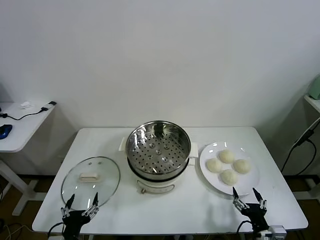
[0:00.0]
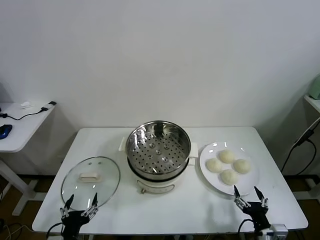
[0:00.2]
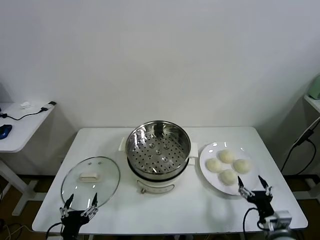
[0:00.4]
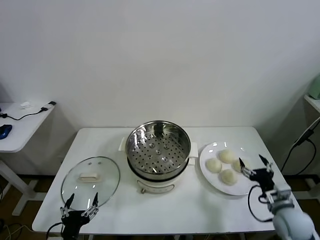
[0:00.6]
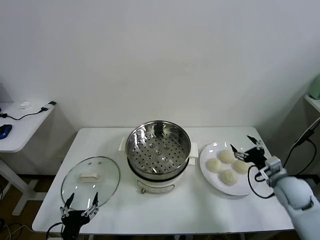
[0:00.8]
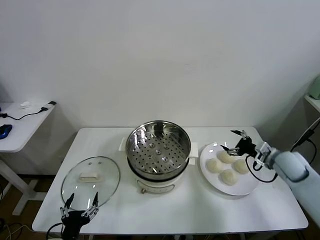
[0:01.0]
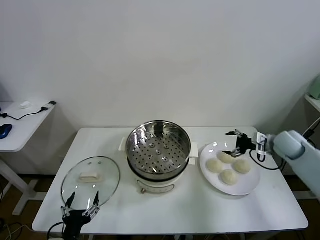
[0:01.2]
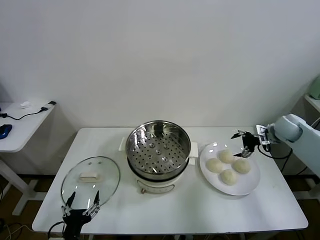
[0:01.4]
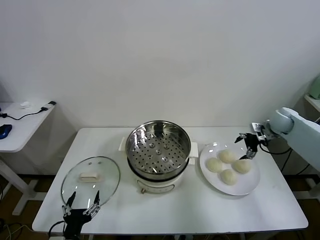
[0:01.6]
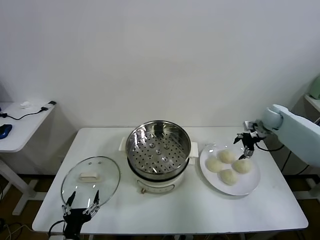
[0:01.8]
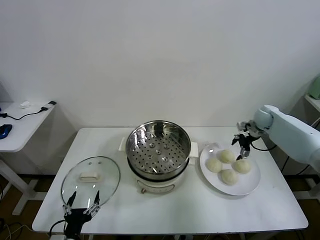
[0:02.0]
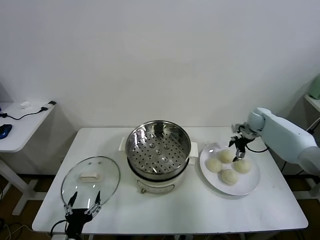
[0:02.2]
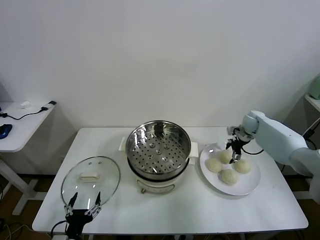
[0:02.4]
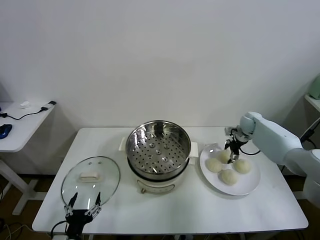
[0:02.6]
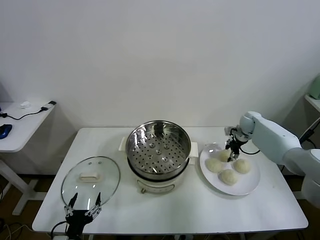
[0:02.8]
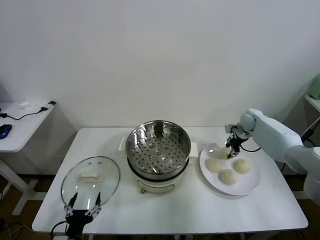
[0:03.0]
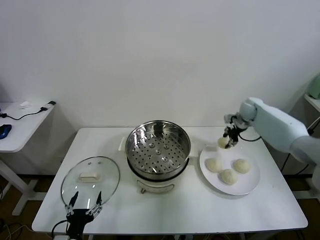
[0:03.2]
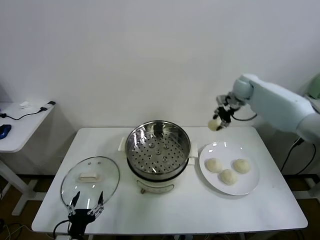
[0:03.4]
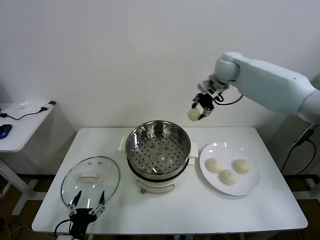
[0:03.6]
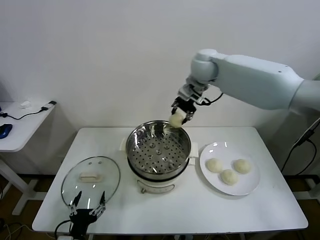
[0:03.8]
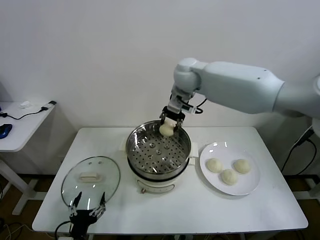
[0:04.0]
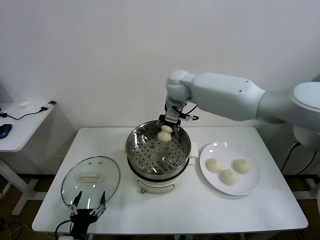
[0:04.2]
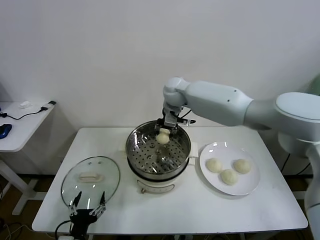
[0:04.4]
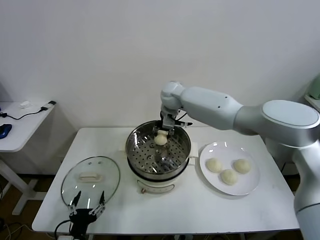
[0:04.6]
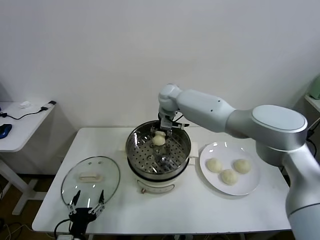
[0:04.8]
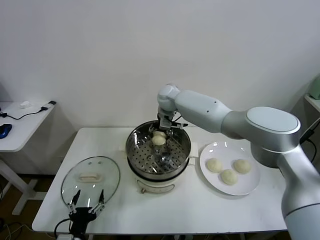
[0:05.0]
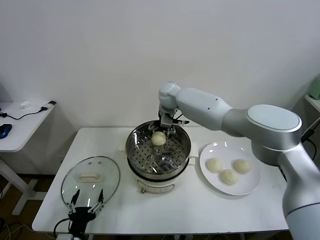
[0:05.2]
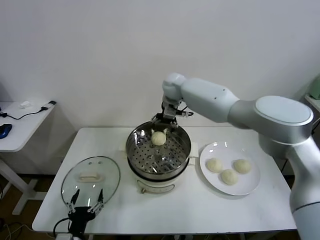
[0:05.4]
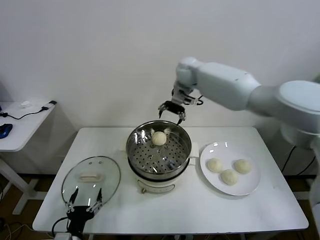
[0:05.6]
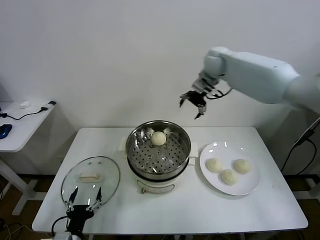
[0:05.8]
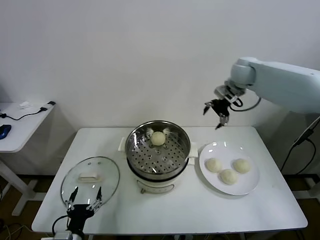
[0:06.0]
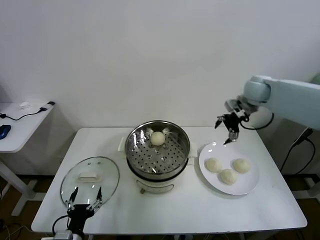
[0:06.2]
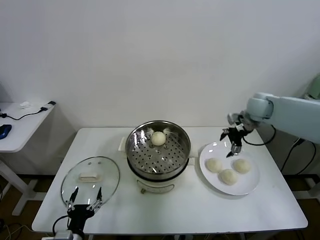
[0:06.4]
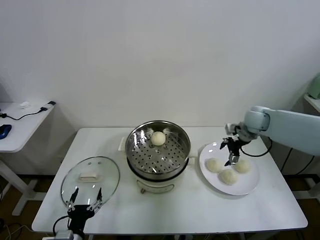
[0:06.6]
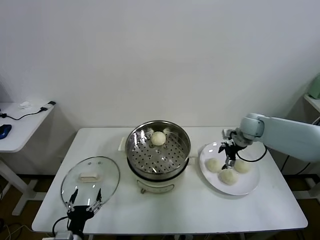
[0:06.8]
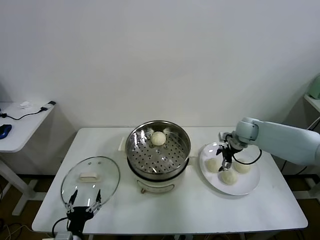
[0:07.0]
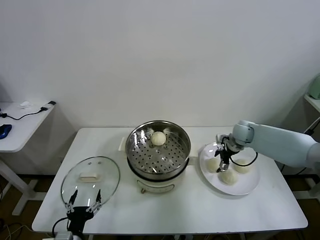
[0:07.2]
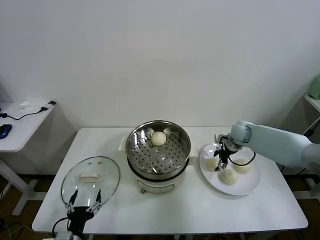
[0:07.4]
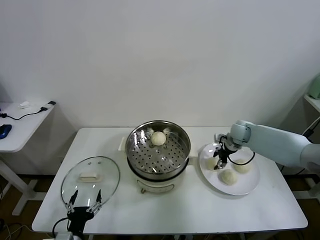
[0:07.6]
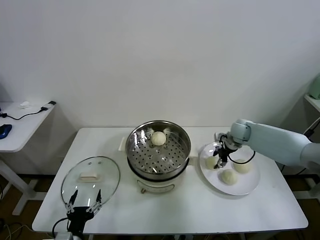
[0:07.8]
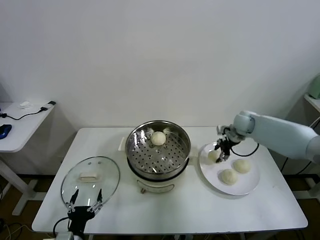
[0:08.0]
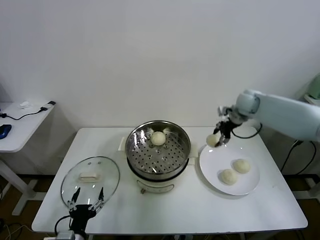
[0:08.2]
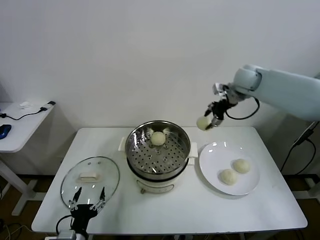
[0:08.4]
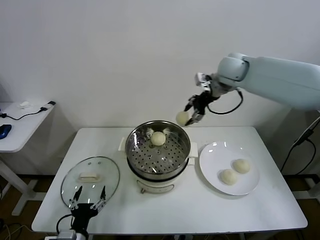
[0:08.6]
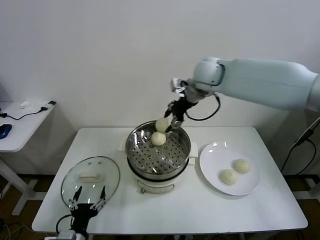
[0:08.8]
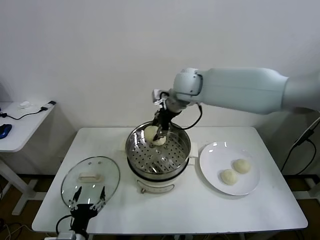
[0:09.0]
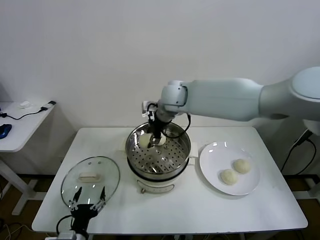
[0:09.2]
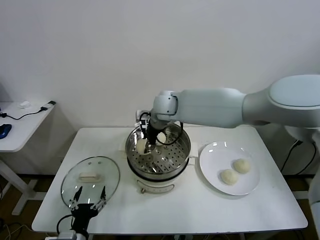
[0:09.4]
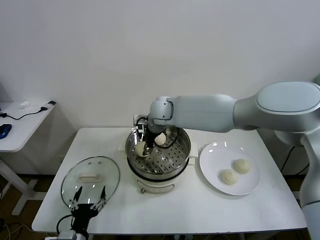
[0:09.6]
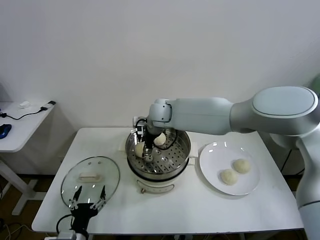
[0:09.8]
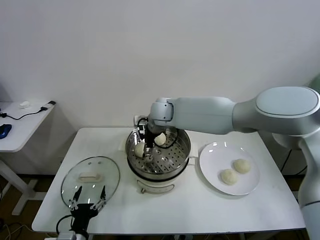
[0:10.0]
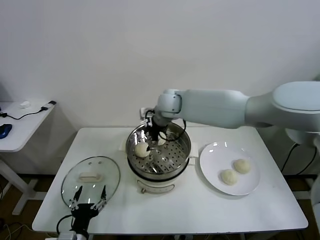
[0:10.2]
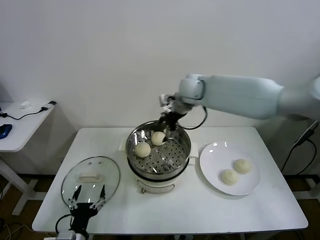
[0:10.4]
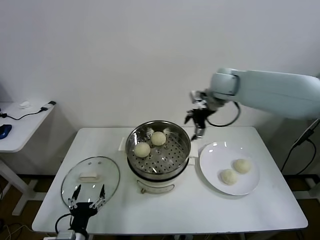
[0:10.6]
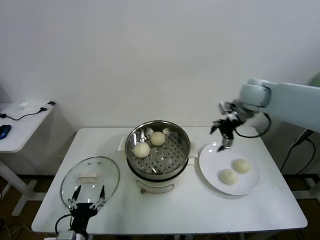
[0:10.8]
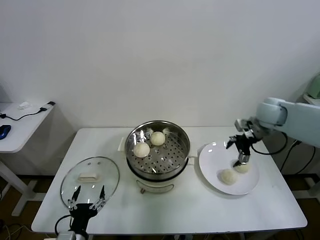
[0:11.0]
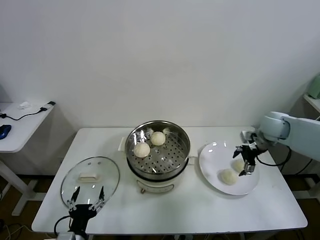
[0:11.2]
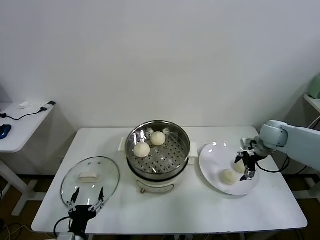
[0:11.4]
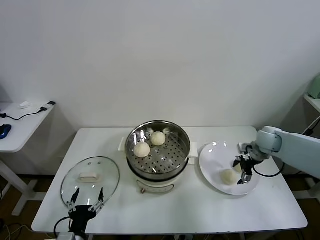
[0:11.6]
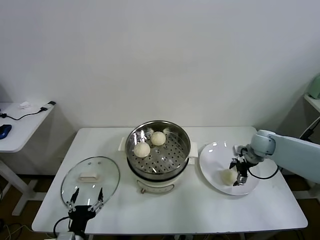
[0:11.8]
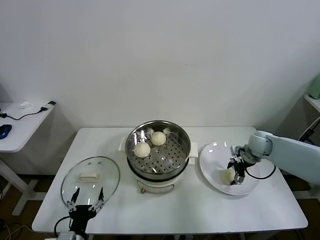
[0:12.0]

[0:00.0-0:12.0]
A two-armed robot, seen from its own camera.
Task of the whole recording: take steamed baozi put them in steamer.
Step, 0:00.0 to 0:02.8: Grasp the baozi in the plate with right gripper.
Step, 0:03.0 to 0:05.2: Place the baozi on the steamer with right gripper.
Step, 0:05.4 to 0:07.4: Grasp the baozi in the plate with right gripper.
Step, 0:07.6 to 0:10.0: Place the baozi on the steamer with right gripper.
0:01.6 to 0:03.0: The right gripper is displaced to the left and forward by about 10 cm, and closes up.
0:03.0 to 0:04.4: The right gripper travels to the left by some 35 cm.
0:04.4 to 0:06.0: The right gripper moves to the right, approximately 25 cm, and opens its fingers.
0:06.0 to 0:07.6: The right gripper is displaced downward by approximately 20 cm, and closes its fingers.
0:07.6 to 0:09.0: The right gripper shifts some 35 cm to the left and upward.
0:09.0 to 0:10.4: The right gripper shifts about 10 cm to the right, and opens its fingers.
0:10.4 to 0:12.0: The right gripper heads to the right and downward, covering roughly 35 cm.

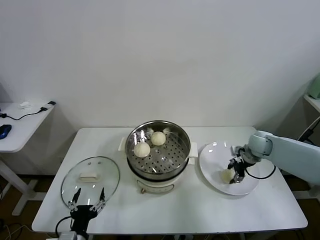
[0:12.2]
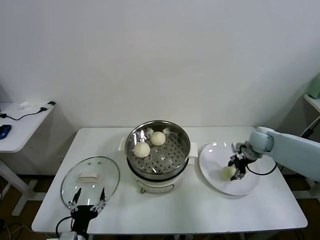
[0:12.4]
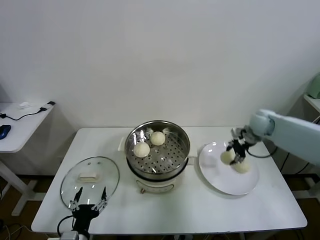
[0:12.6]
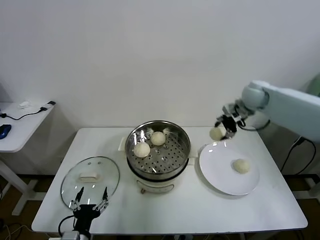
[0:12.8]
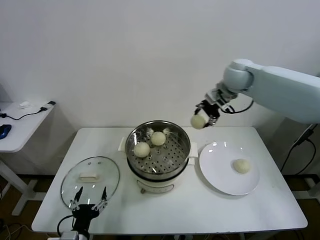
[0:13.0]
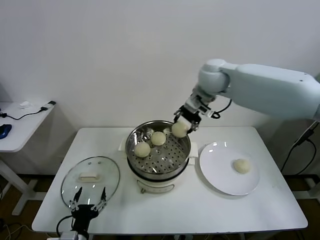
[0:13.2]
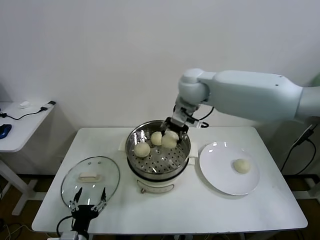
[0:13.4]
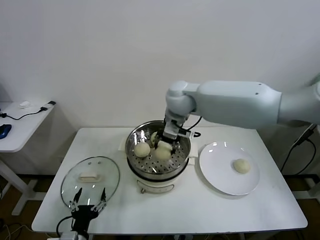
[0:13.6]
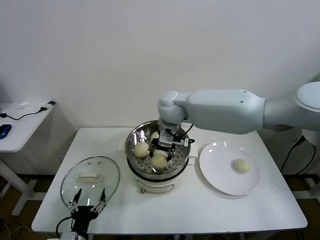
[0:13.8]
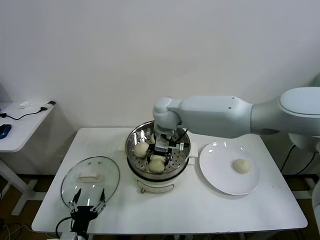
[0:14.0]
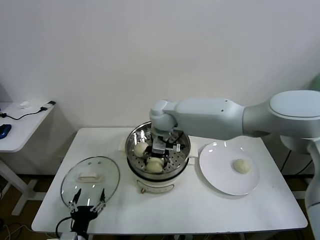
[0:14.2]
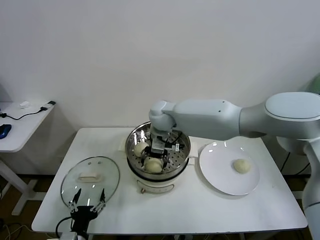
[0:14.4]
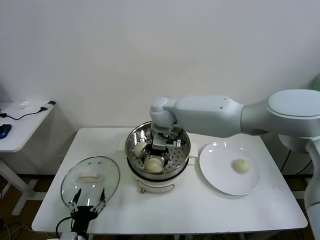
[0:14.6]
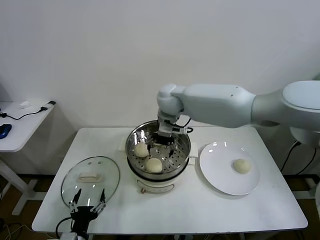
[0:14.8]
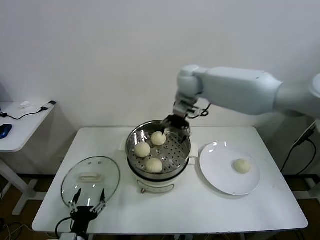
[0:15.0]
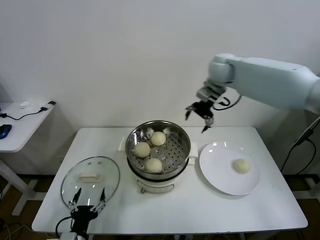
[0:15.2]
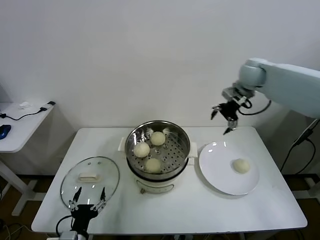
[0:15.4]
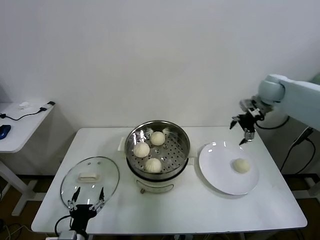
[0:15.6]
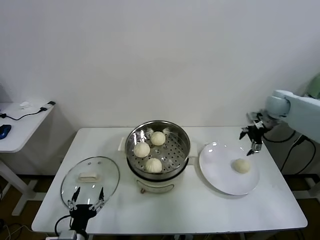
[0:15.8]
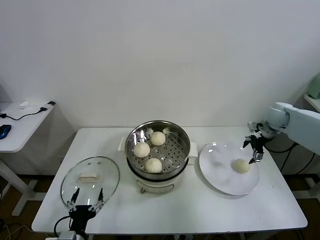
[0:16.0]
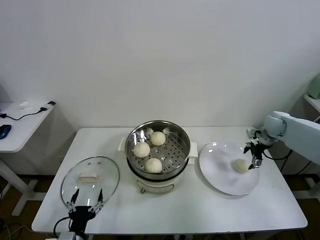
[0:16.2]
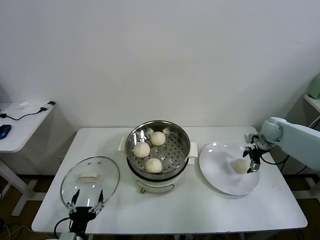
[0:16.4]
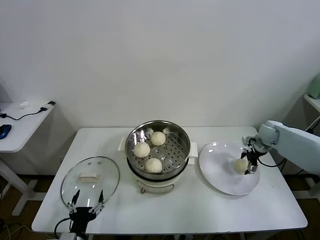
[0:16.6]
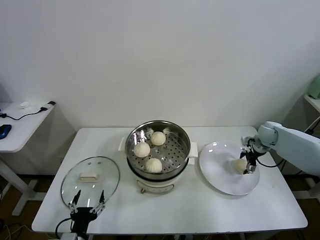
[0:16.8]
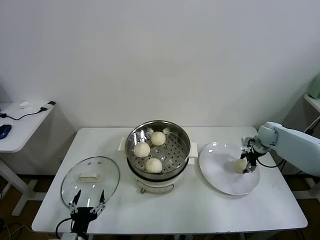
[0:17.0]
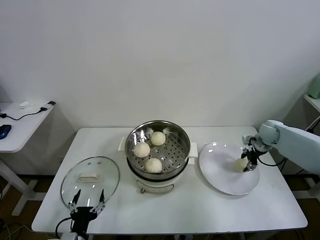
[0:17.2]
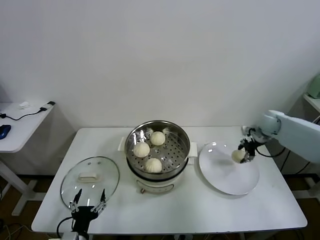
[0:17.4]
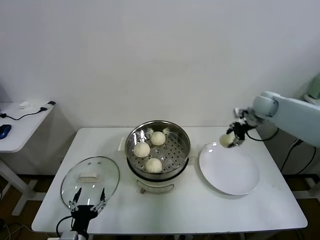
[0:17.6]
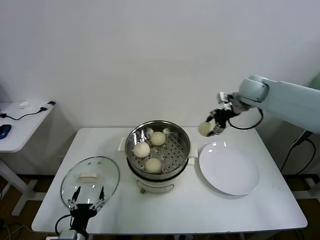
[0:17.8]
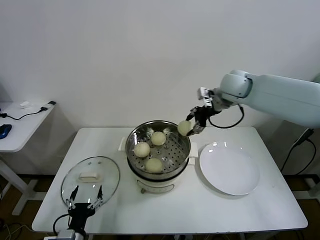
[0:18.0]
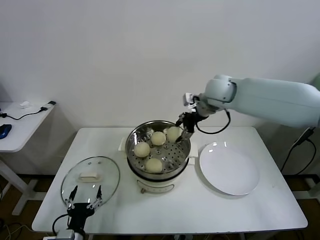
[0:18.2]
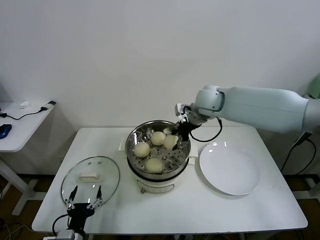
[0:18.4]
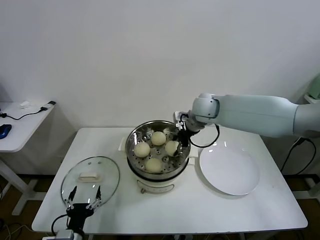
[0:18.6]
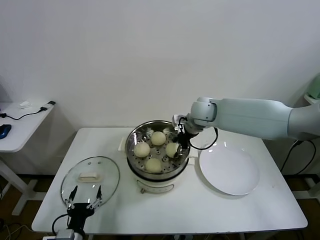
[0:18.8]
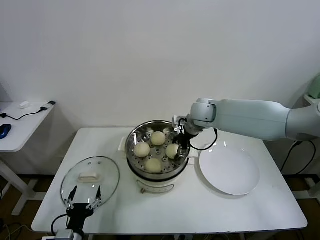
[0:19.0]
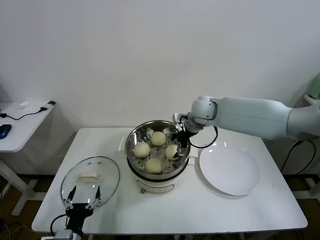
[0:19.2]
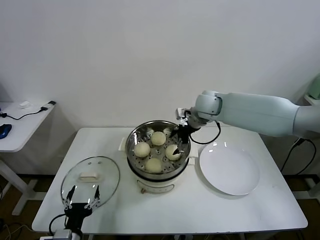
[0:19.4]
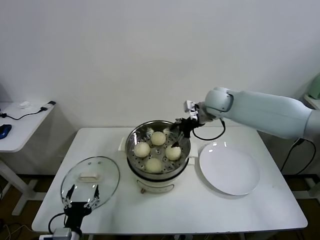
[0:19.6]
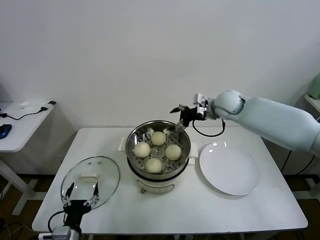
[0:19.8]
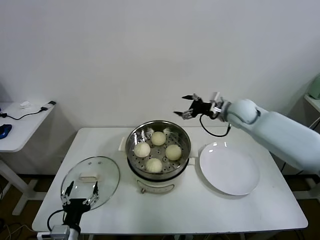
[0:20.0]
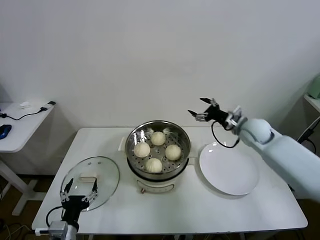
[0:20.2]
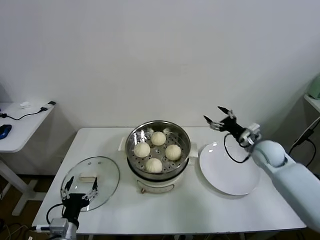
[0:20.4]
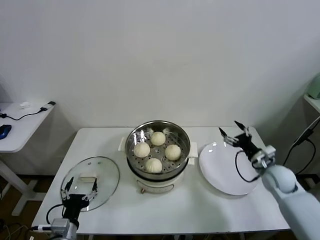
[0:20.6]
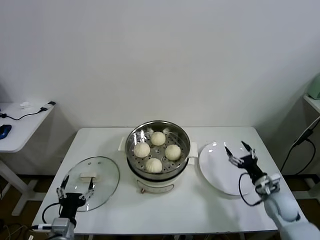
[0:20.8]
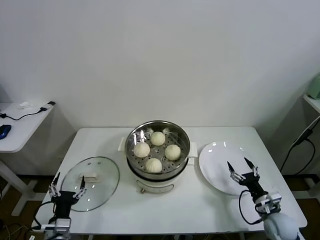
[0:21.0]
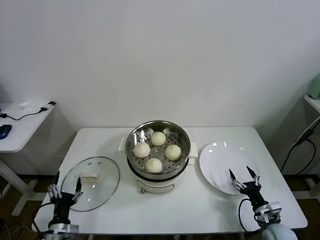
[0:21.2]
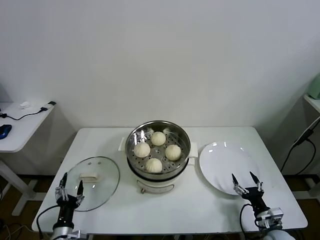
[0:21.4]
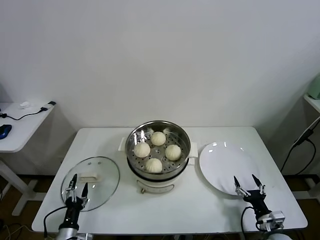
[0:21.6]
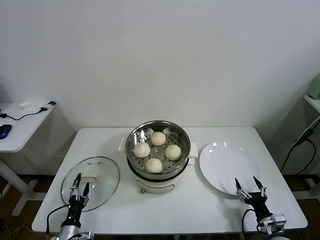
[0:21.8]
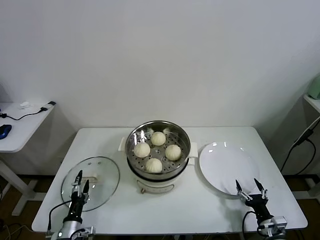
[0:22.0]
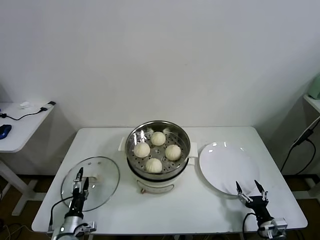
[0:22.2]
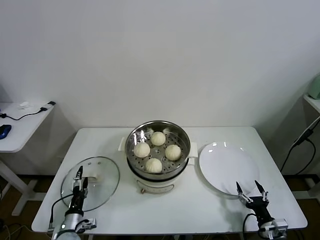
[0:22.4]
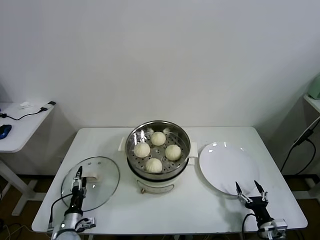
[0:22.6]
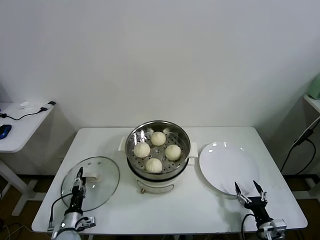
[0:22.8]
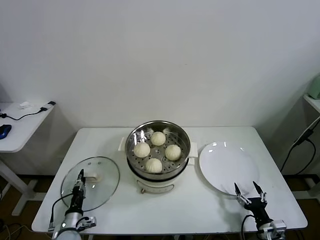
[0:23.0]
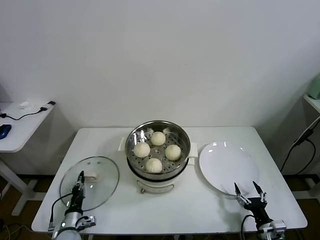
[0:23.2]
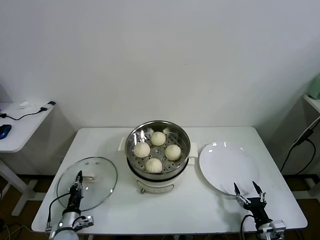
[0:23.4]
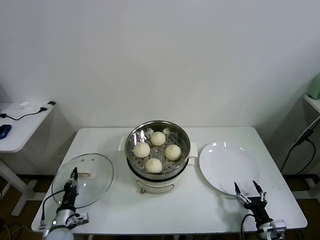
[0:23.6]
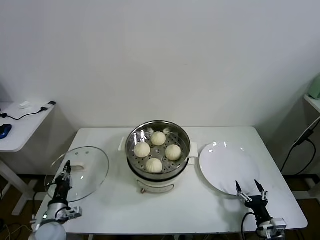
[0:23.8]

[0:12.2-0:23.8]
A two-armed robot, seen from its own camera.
Task of the whole recording: take steamed baozi put them in steamer.
Step, 0:12.4 to 0:14.6: Place the baozi on the steamer with right gripper.
Step, 0:14.8 to 0:17.0: Grasp the baozi in the plate with right gripper.
Step, 0:17.2 to 0:19.2: Place the baozi on the steamer with right gripper.
Step, 0:19.6 to 0:23.2: Grasp the pot lid with left gripper.
0:12.2 to 0:13.6: The right gripper is displaced to the left and upward by roughly 40 cm.
0:13.6 to 0:15.0: The right gripper heads forward and to the right, covering about 10 cm, and opens its fingers.
0:15.0 to 0:16.6: The right gripper moves to the right and downward, about 40 cm.
0:16.6 to 0:18.0: The right gripper is displaced upward and to the left by about 30 cm, and closes its fingers.
0:18.0 to 0:19.4: The right gripper shifts roughly 10 cm downward and to the left, and opens up.
0:19.4 to 0:21.0: The right gripper is displaced downward, backward and to the right by approximately 50 cm; the left gripper moves about 5 cm.
0:21.0 to 0:22.4: The right gripper goes roughly 10 cm backward. Meanwhile the left gripper moves downward and forward, some 10 cm.
0:22.4 to 0:23.8: The left gripper heads upward, covering approximately 5 cm, and closes.
